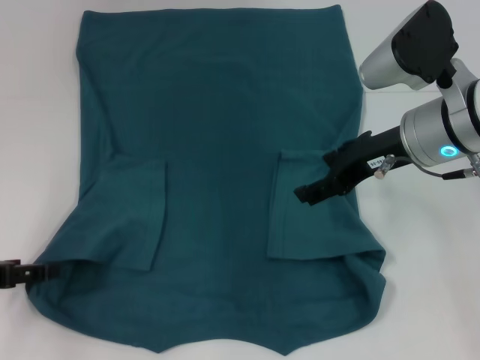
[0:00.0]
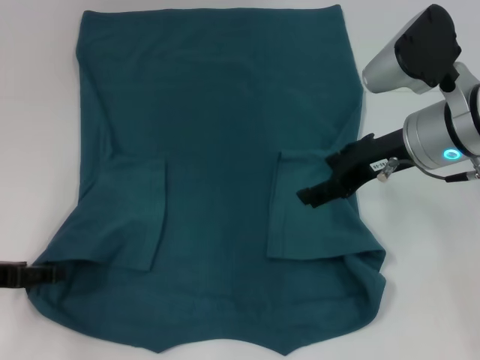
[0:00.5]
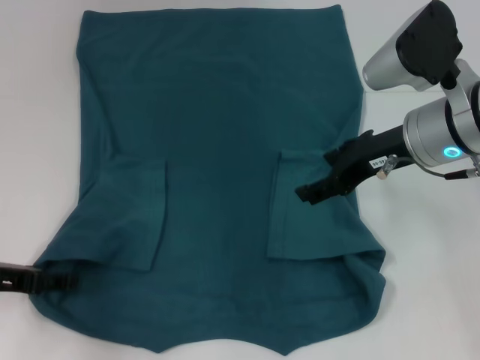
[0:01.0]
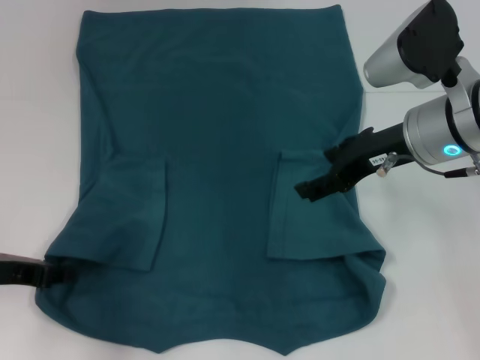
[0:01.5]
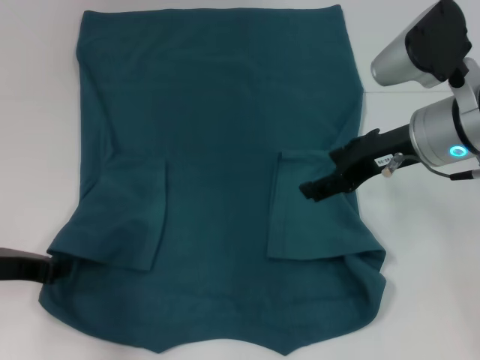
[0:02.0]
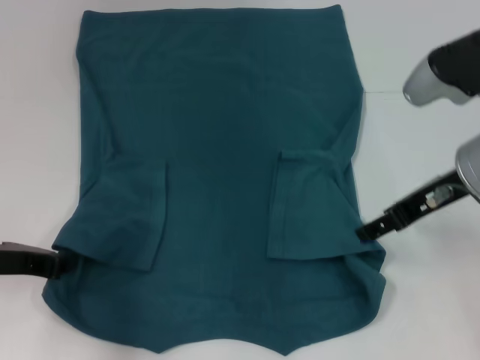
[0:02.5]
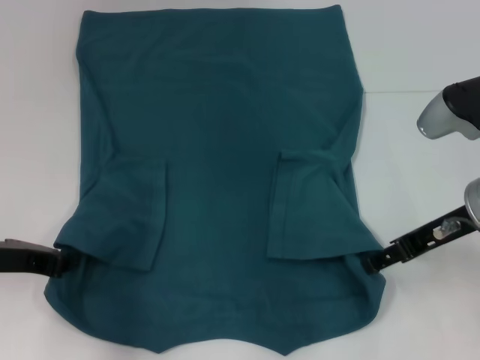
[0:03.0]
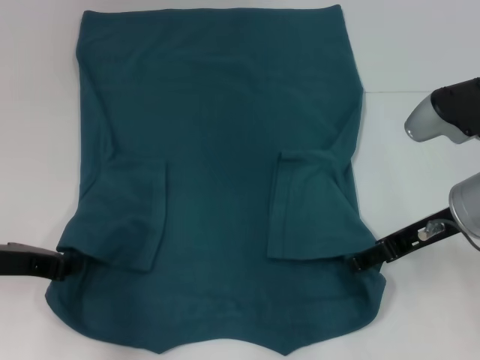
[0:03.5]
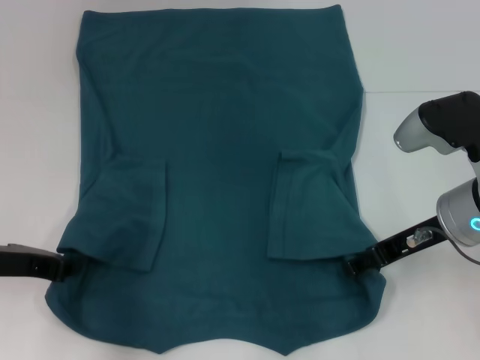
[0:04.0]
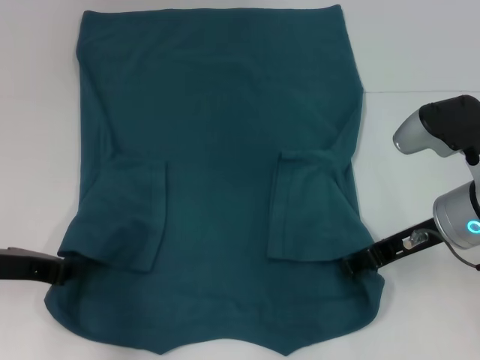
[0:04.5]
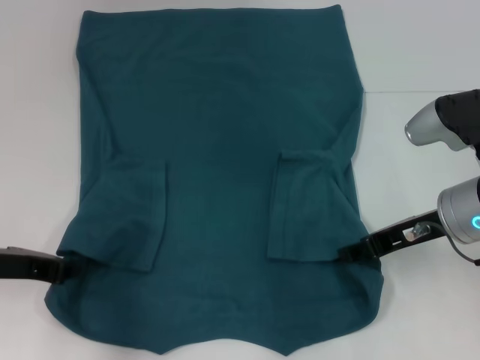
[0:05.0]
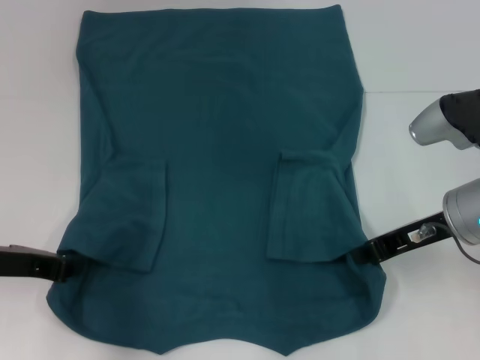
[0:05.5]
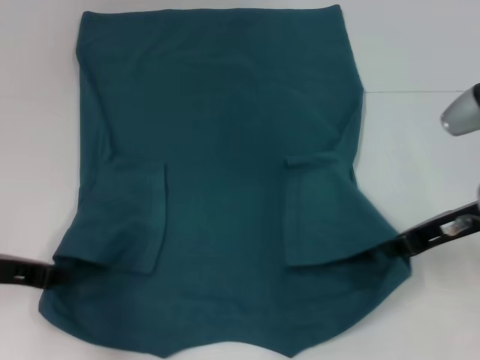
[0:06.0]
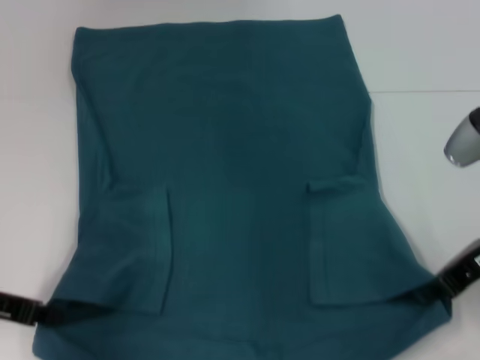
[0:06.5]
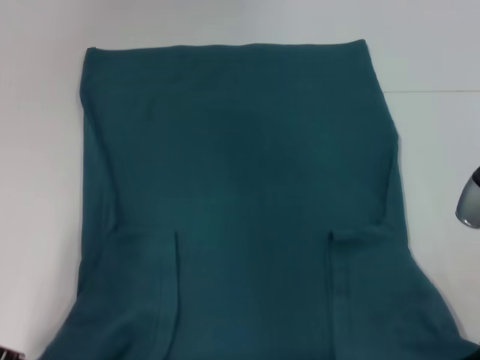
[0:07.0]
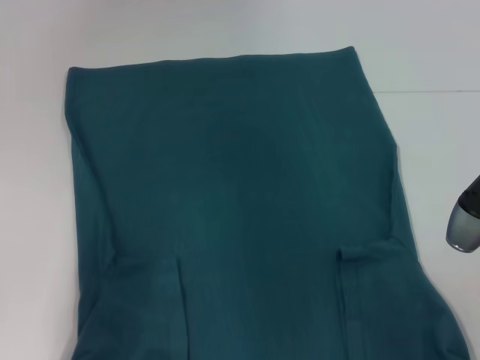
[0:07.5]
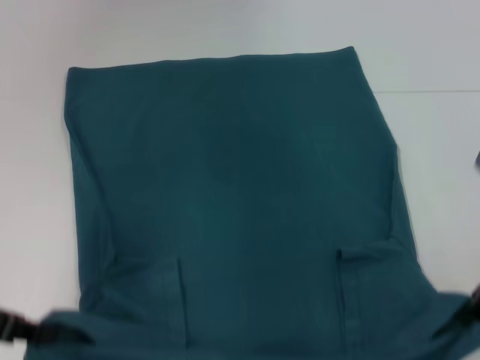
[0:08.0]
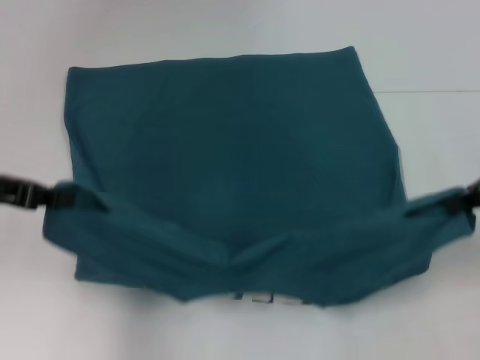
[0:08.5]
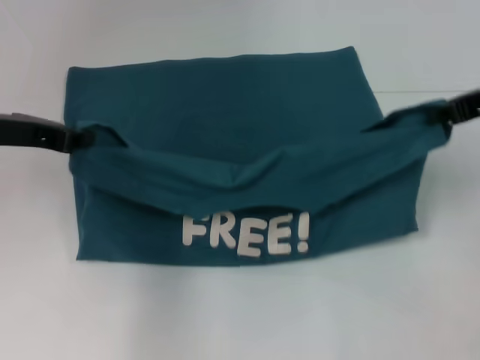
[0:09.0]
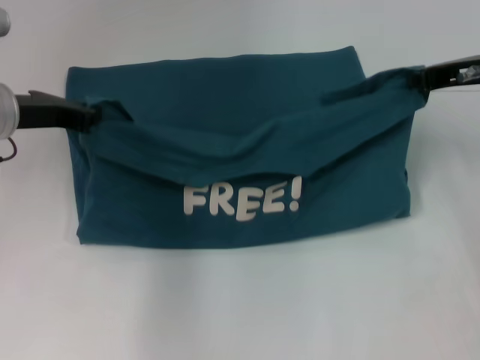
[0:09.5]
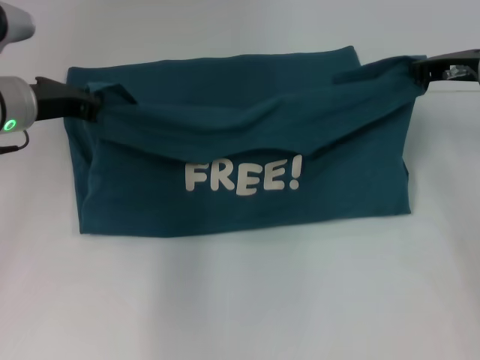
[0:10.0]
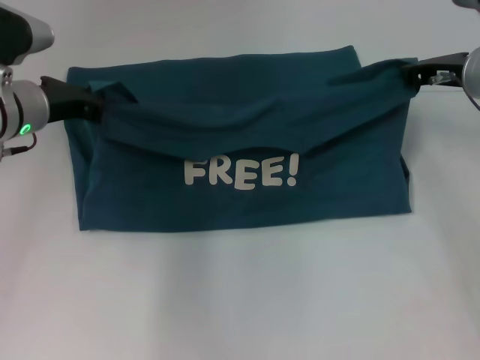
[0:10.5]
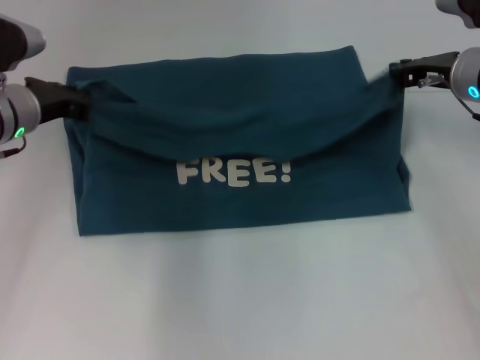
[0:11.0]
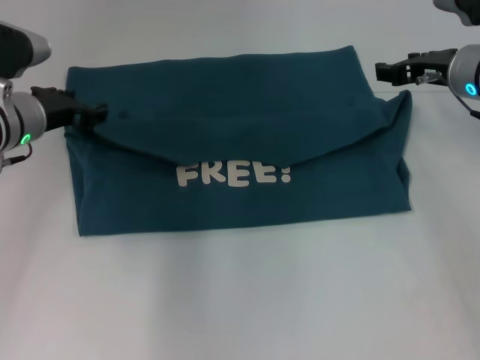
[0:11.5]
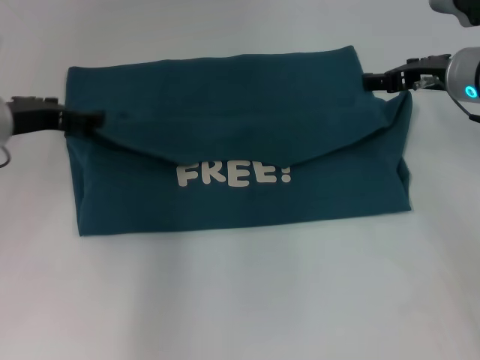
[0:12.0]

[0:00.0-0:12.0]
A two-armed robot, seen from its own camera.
Step, 0:00.0 to 0:02.0: Grab the bottom left corner with your left hand.
Step, 0:02.5 to 0:05.0: Grab the bottom right corner with your right hand.
Step, 0:05.5 to 0:11.5: Fold the clothes to the left.
Step, 0:05.5 to 0:11.5: Fold the clothes to the right.
0:00.0 to 0:02.0: The left gripper changes place by about 5 cm, and closes its fingers.
0:02.0 to 0:04.0: The right gripper travels downward by about 5 cm.
0:04.0 to 0:06.0: The right gripper closes.
0:06.0 to 0:08.0: The left gripper travels upward by approximately 5 cm. Meanwhile the right gripper ends up approximately 5 cm from where it was.
0:08.0 to 0:10.0: Both grippers travel together forward, some 15 cm.
0:10.0 to 0:12.0: The left gripper opens up. Meanwhile the right gripper opens.

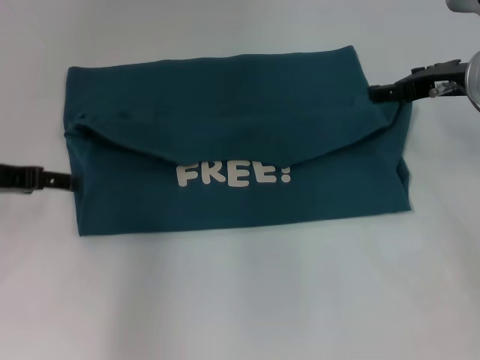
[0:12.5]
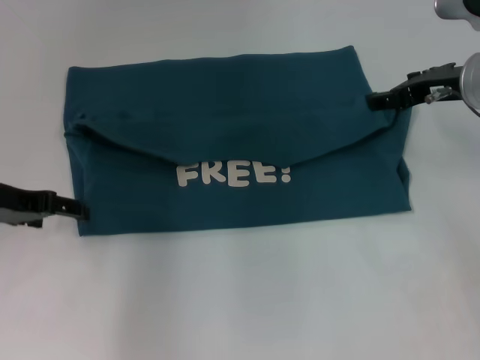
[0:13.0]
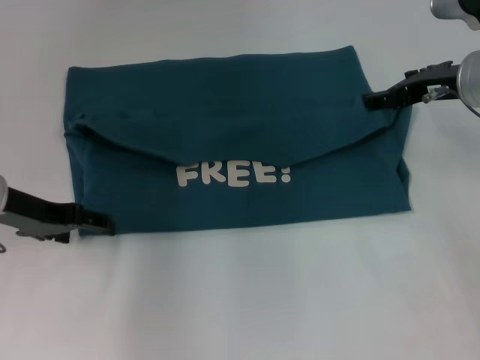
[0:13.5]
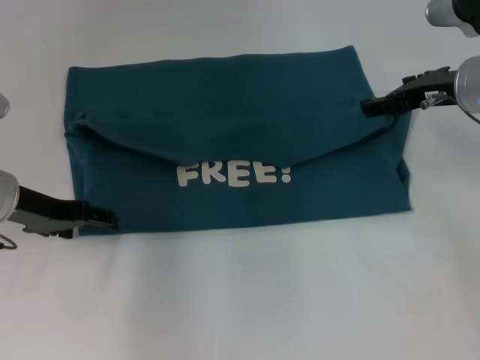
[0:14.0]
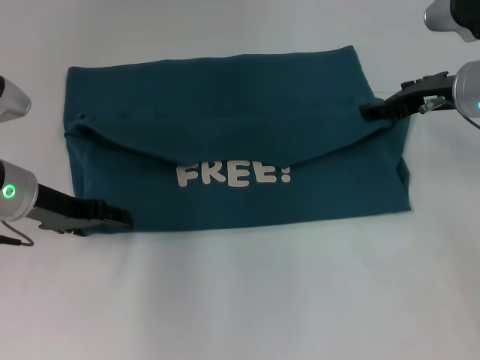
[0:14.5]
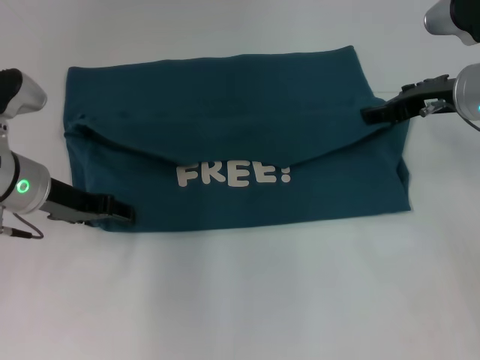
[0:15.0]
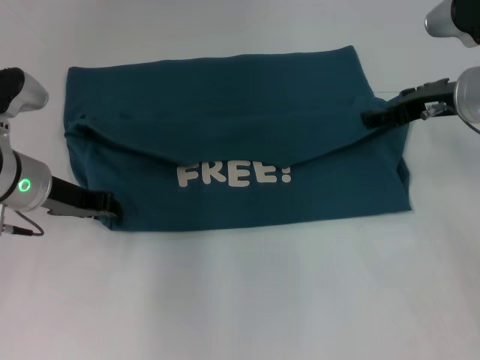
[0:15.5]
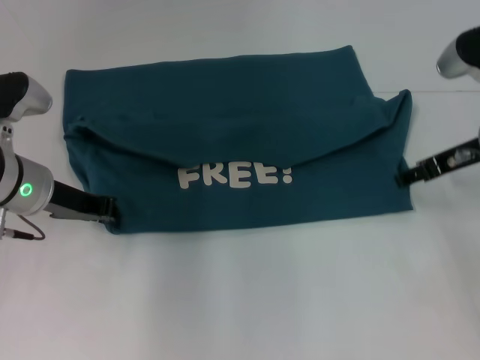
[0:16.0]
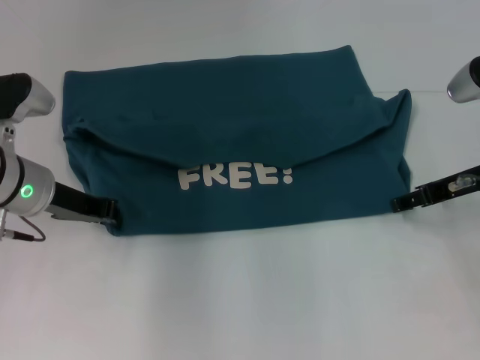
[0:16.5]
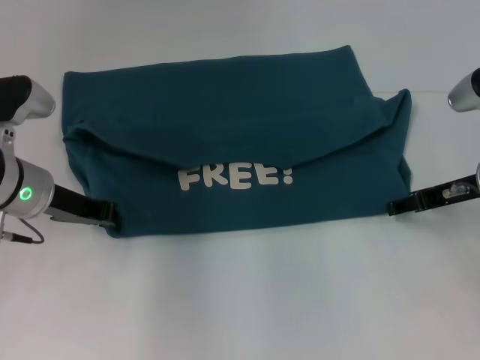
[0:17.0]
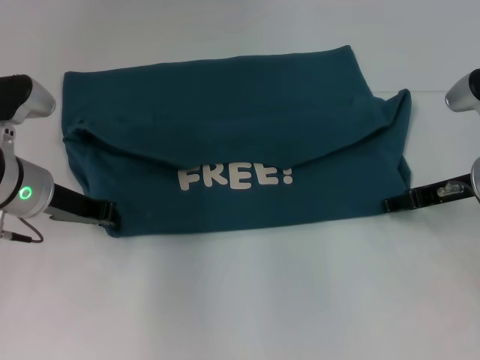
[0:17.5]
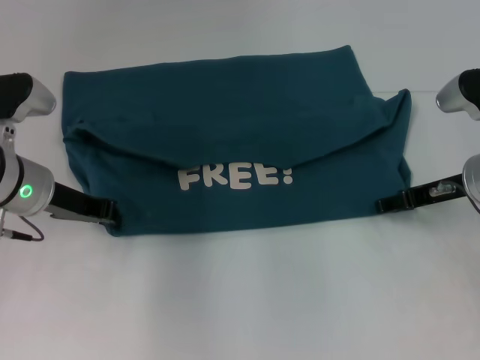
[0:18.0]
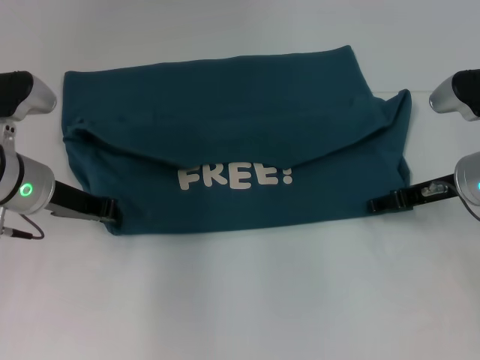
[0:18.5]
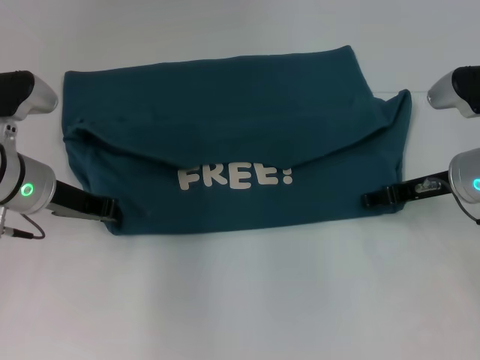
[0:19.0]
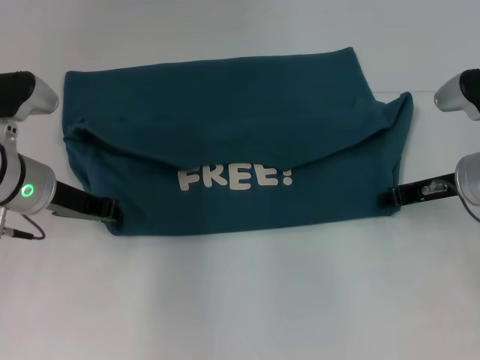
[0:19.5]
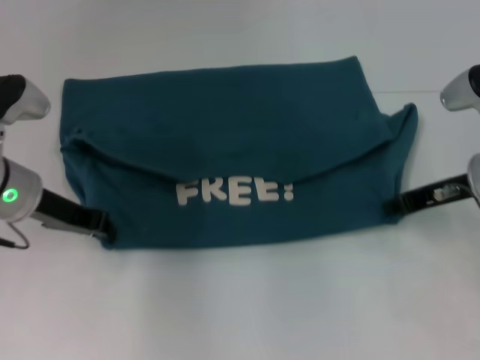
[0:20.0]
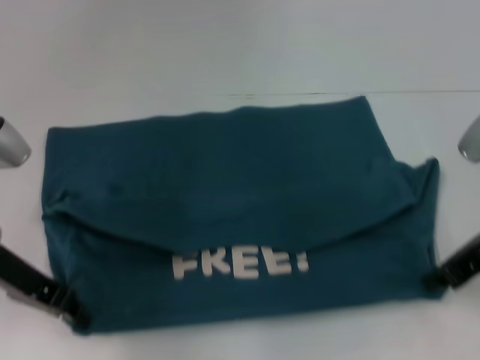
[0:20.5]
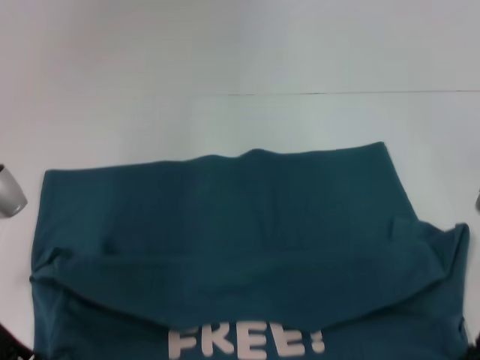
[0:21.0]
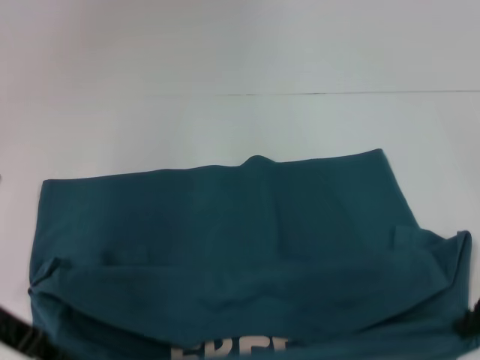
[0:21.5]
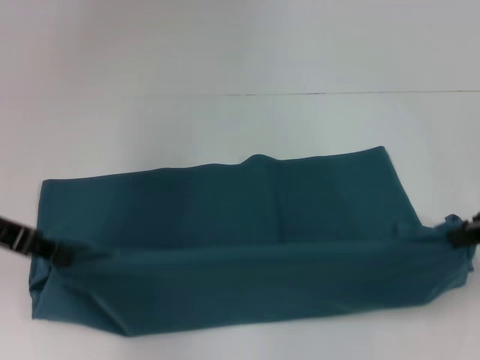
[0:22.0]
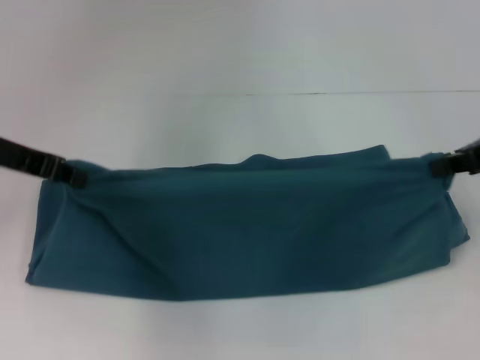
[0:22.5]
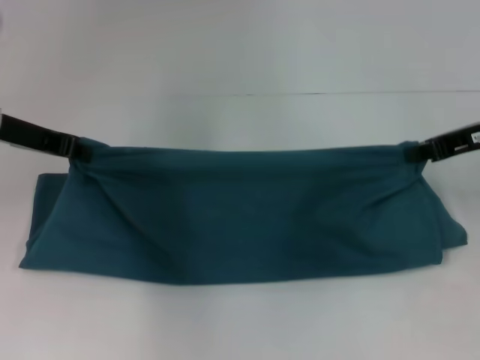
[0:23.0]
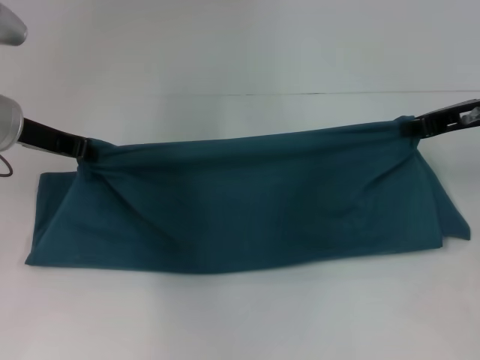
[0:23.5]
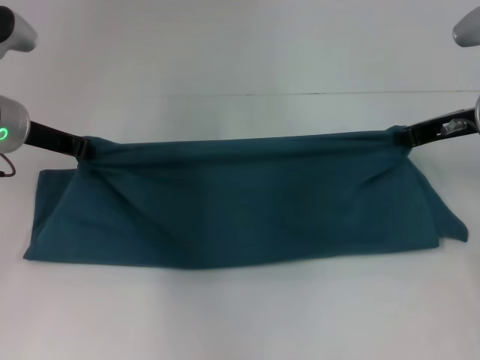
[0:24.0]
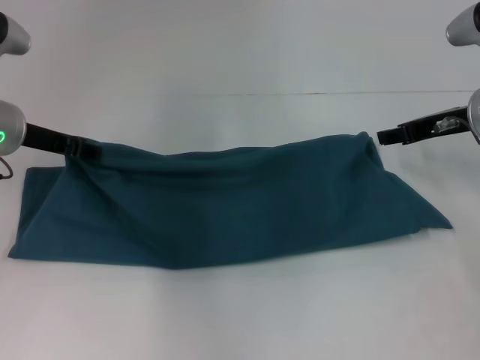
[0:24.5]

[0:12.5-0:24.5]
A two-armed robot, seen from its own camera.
Step, 0:12.5 to 0:20.5: Pull the clothes with your left hand.
Step, 0:12.5 to 0:20.5: Pull the clothes with your right hand.
0:12.5 to 0:14.5: The left gripper goes roughly 5 cm to the right.
0:14.5 to 0:16.5: The right gripper shifts by approximately 5 cm; the left gripper closes.
0:16.5 to 0:18.5: The grippers stay close to where they were, moving slightly.
0:18.5 to 0:20.5: The two grippers go approximately 5 cm backward. The right gripper closes up.
0:20.5 to 0:22.5: Both grippers travel together upward, some 10 cm.
0:22.5 to 0:24.5: The grippers both shift downward and forward by some 10 cm.

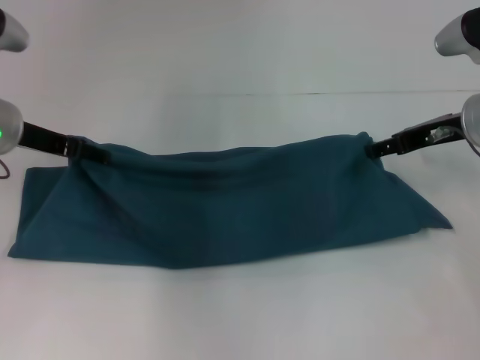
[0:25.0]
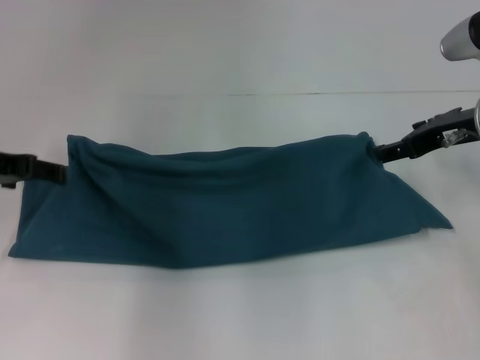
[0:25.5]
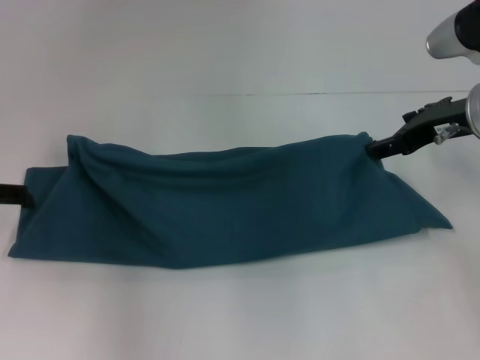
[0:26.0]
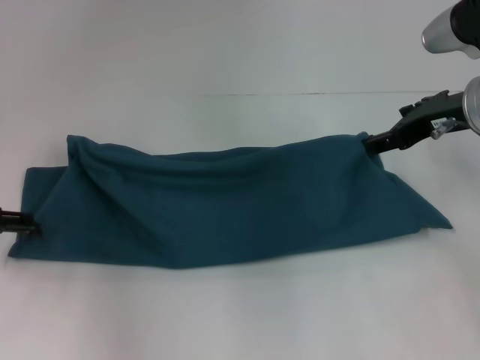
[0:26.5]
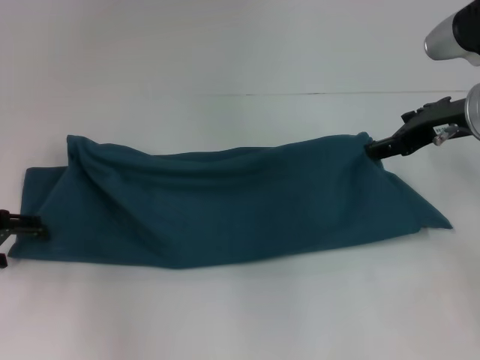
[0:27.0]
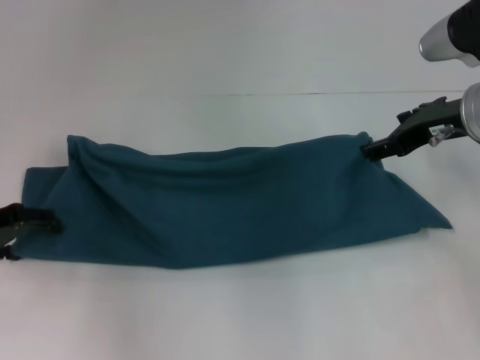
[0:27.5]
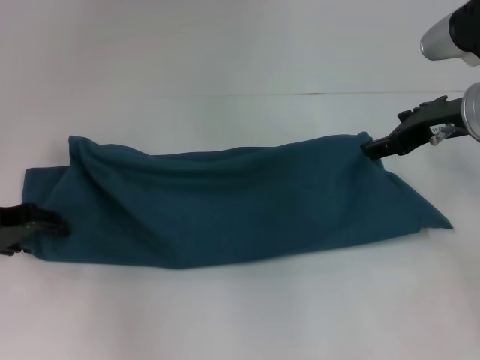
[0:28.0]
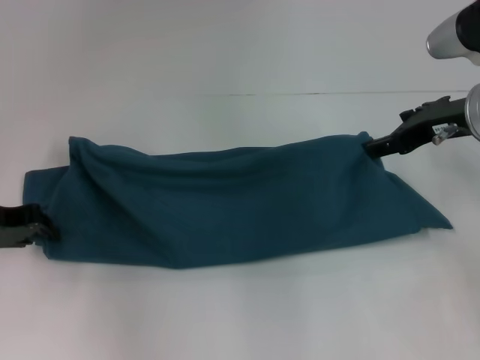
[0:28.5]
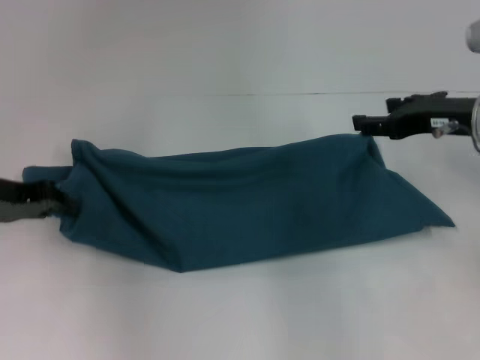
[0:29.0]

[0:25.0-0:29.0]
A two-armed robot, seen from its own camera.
0:25.0 to 0:27.0: The left gripper moves to the left and backward, approximately 10 cm.
0:27.0 to 0:29.0: The left gripper closes.
